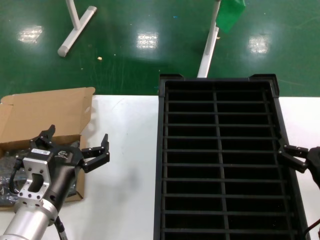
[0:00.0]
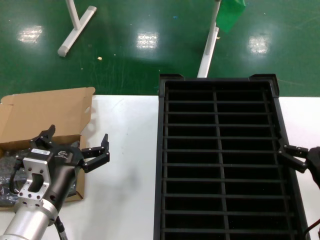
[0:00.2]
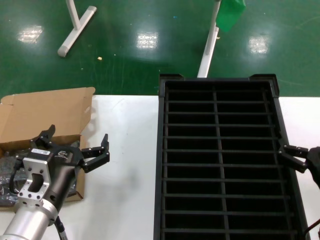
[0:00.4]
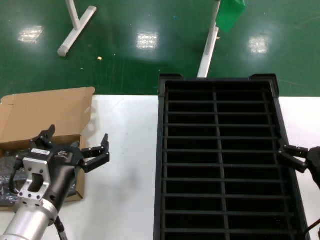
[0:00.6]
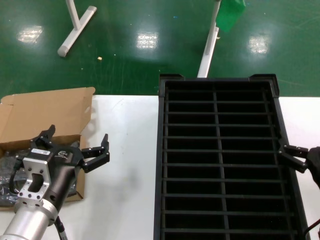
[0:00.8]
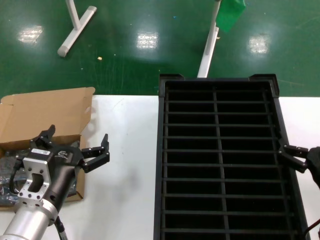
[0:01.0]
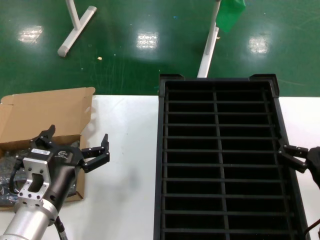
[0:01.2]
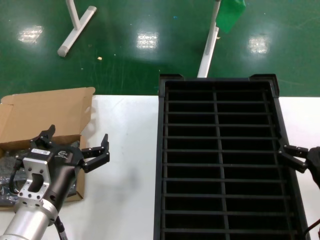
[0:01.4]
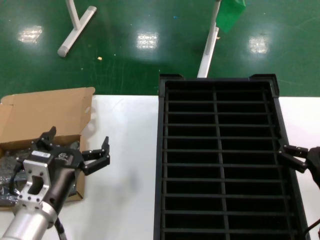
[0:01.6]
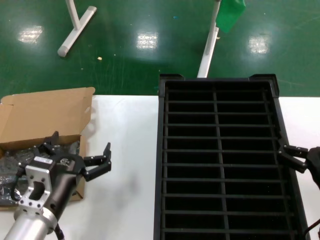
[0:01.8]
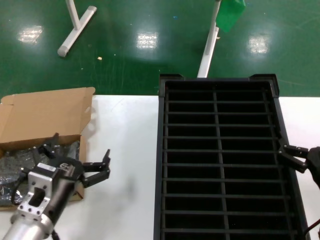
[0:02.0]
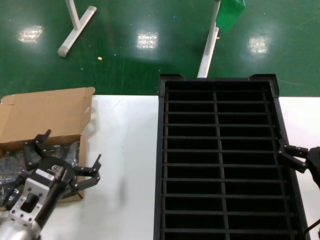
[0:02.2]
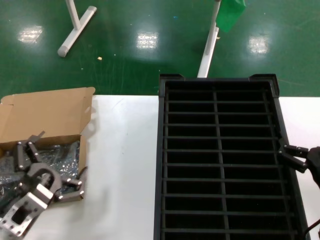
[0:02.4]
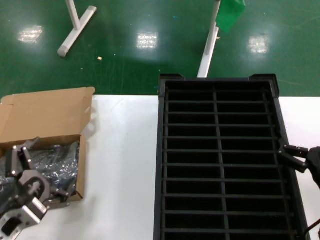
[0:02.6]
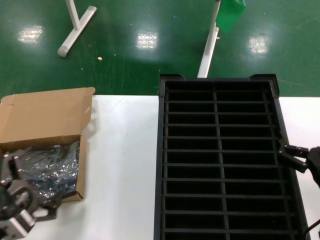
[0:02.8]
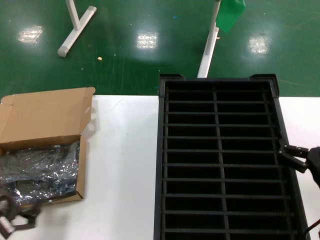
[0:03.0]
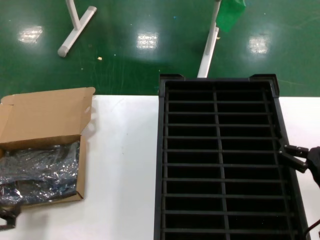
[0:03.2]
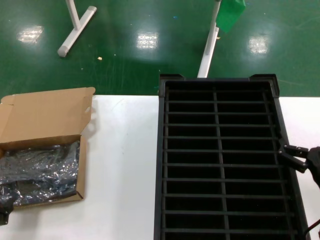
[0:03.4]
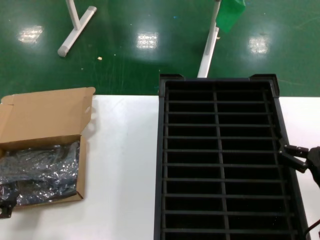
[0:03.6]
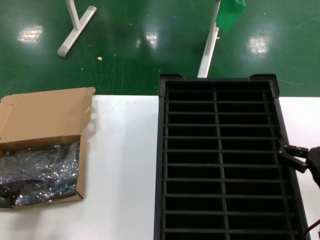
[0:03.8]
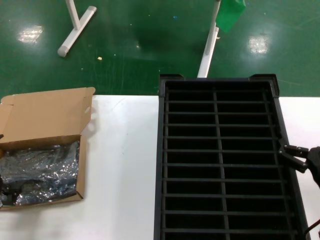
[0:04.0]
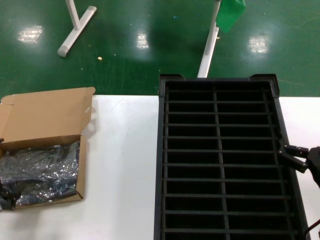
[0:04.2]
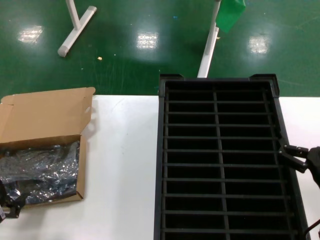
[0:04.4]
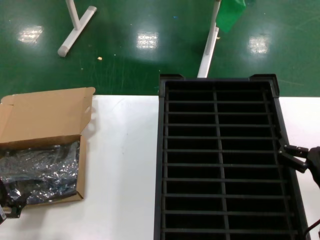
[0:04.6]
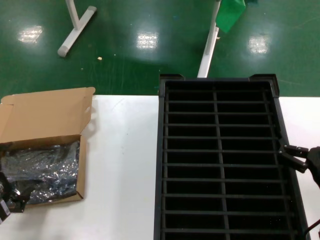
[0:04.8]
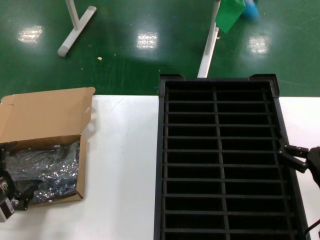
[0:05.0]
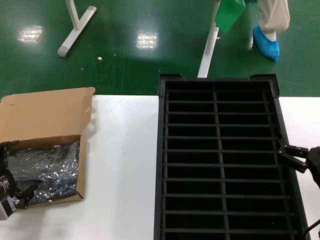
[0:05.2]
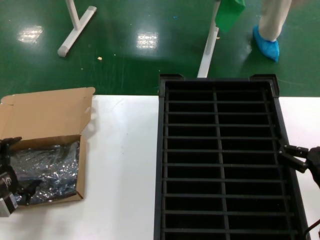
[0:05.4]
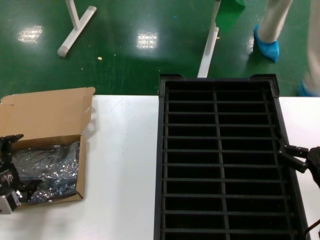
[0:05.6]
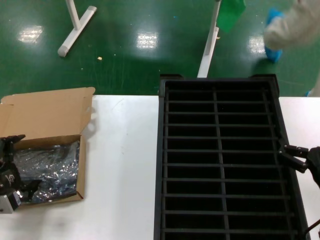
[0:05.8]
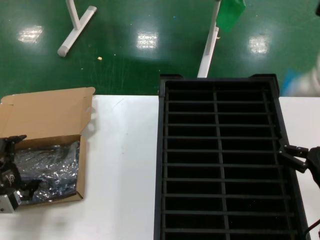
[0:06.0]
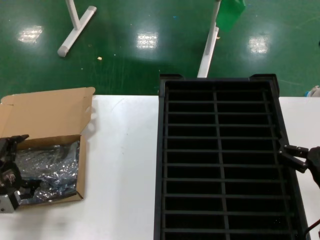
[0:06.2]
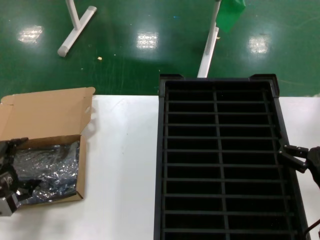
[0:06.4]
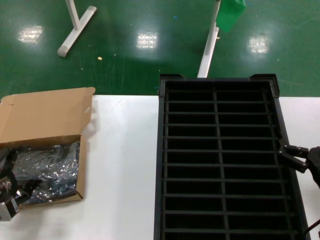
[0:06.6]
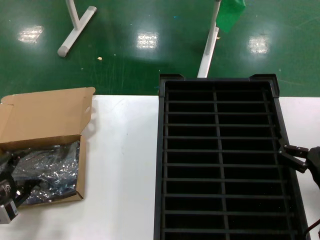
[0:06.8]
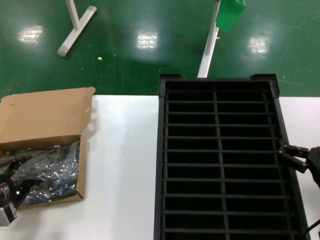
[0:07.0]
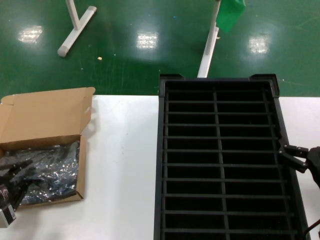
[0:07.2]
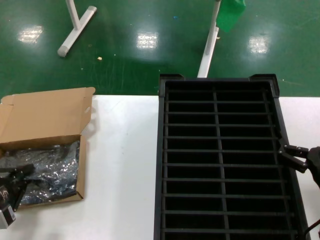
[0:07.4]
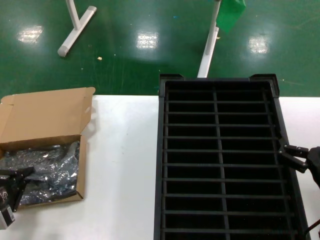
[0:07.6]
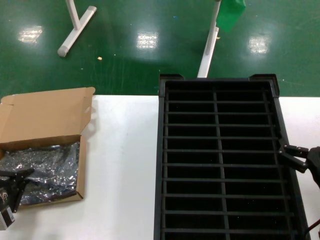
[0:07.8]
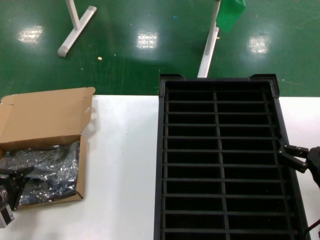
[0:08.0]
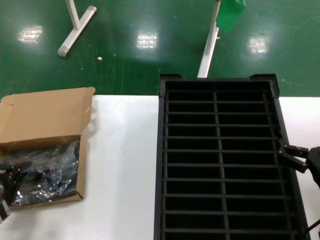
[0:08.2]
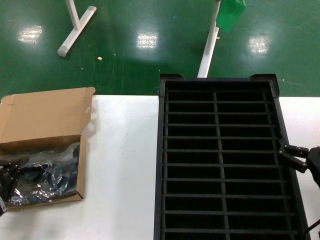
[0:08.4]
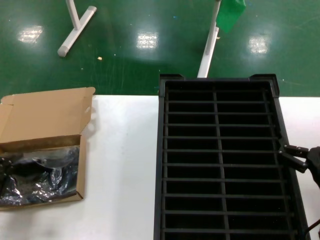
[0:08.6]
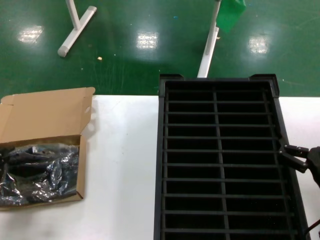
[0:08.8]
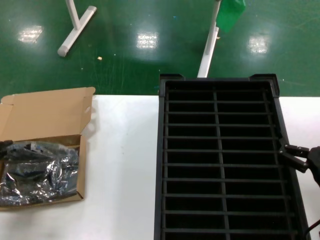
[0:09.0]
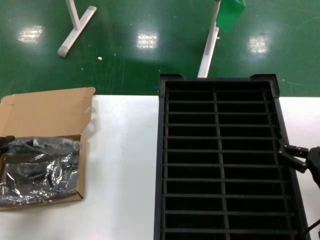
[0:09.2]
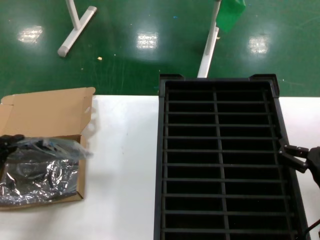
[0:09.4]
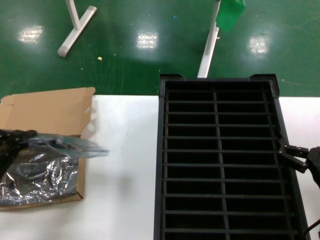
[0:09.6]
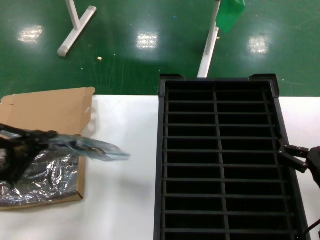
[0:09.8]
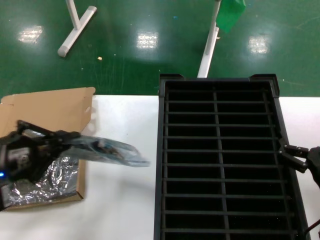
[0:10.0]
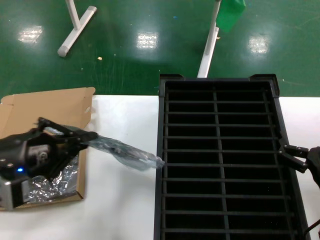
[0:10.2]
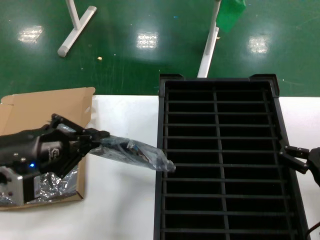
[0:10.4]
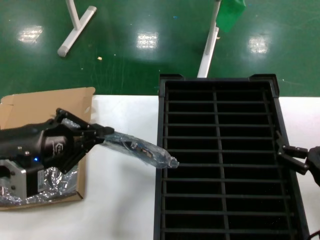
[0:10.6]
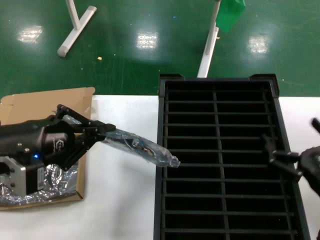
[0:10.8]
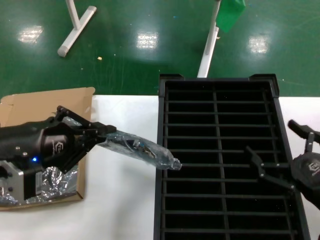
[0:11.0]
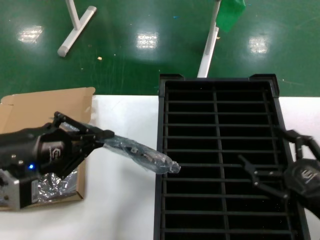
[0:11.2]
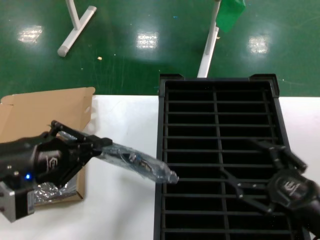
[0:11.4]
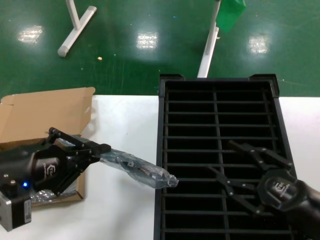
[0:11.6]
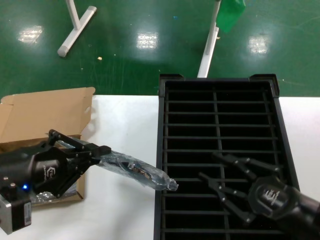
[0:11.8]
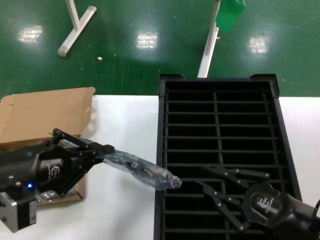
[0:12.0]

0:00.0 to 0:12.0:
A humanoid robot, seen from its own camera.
Task of the whole recording: take out graphics card from box remove packaging put into black container.
Step, 0:00.0 to 0:07.6: Grasp the bag.
Step, 0:07.8 to 0:10.6: Lift the bag.
0:00.0 to 0:01.6: Both hands stay put.
0:01.6 to 0:03.0: The left hand moves to the left and backward, approximately 15 cm.
0:03.0 to 0:04.4: The left hand shifts roughly 10 cm to the left and forward.
0:04.4 to 0:06.0: The left hand travels forward by about 5 cm.
0:06.0 to 0:07.6: The hands stay close to where they were, moving slightly.
0:07.6 to 0:09.0: The left hand moves upward, roughly 10 cm.
0:09.0 to 0:10.4: The left hand moves to the right and upward, some 20 cm.

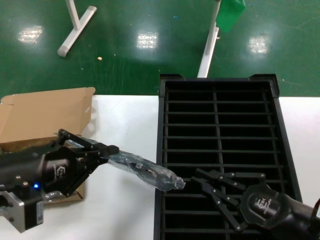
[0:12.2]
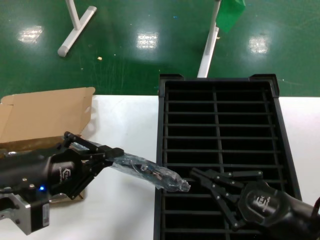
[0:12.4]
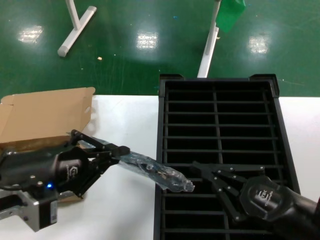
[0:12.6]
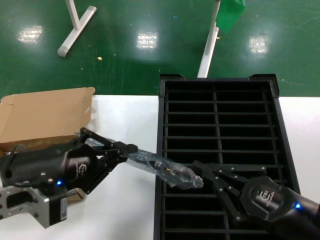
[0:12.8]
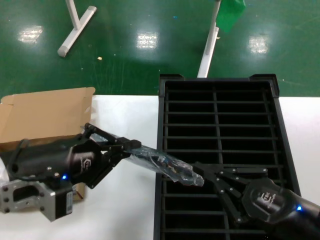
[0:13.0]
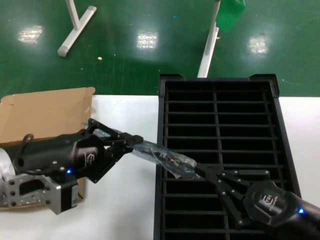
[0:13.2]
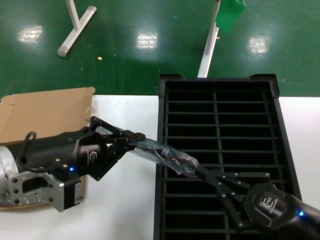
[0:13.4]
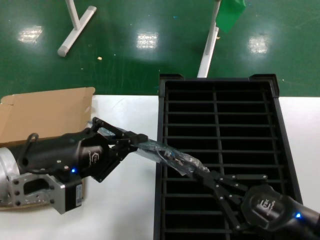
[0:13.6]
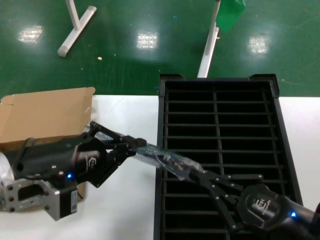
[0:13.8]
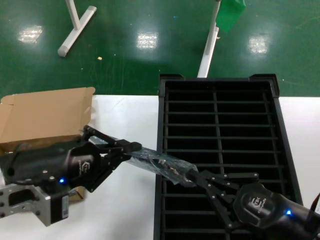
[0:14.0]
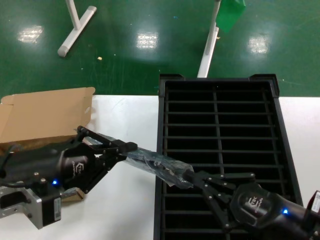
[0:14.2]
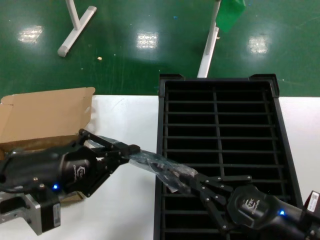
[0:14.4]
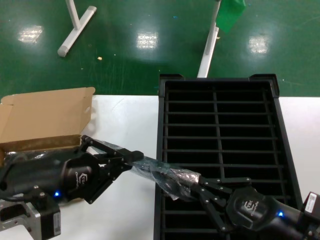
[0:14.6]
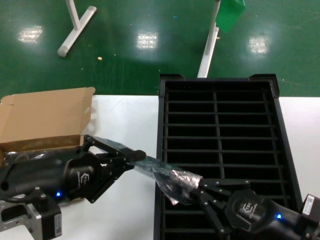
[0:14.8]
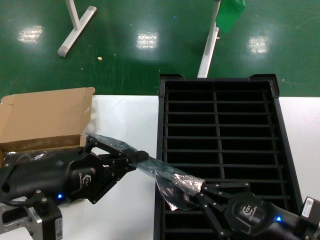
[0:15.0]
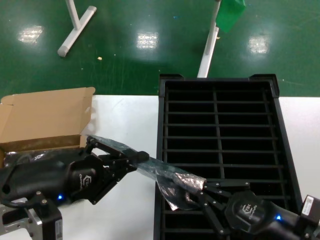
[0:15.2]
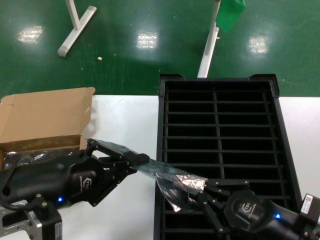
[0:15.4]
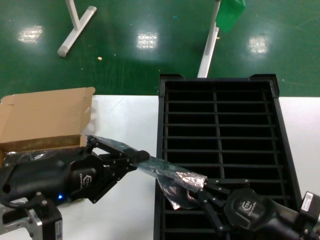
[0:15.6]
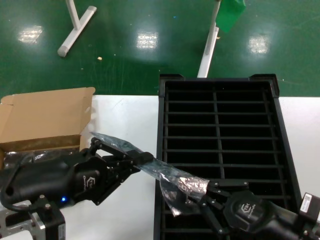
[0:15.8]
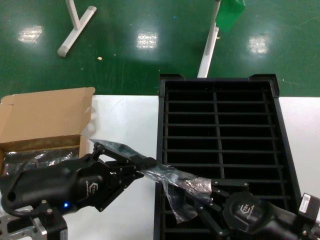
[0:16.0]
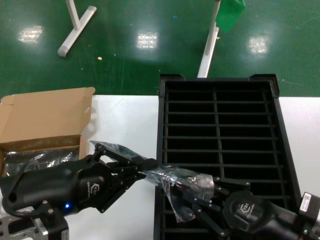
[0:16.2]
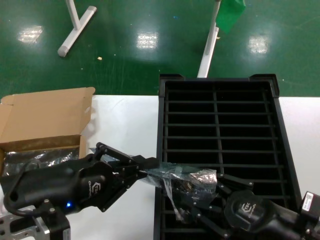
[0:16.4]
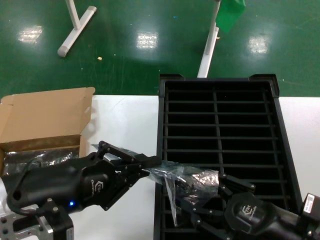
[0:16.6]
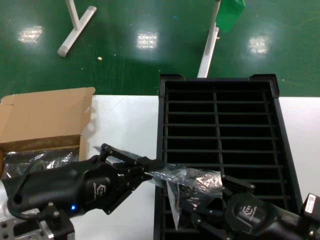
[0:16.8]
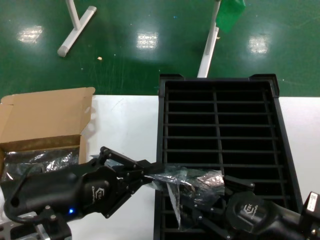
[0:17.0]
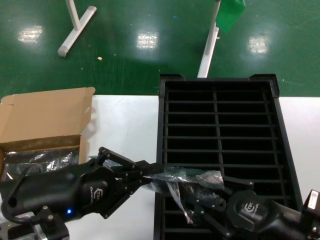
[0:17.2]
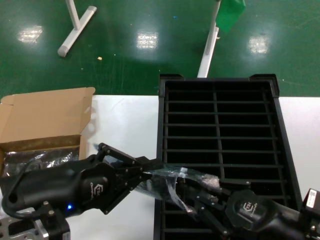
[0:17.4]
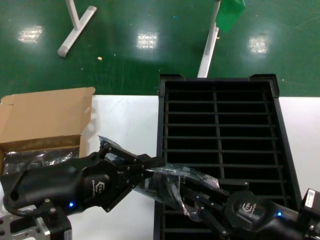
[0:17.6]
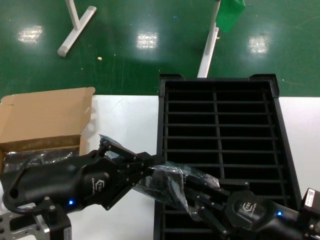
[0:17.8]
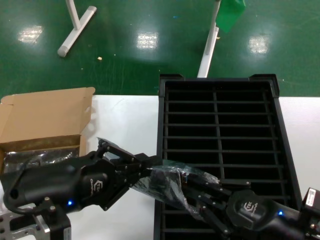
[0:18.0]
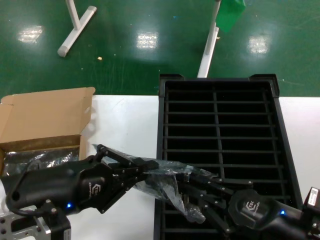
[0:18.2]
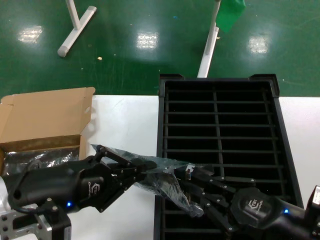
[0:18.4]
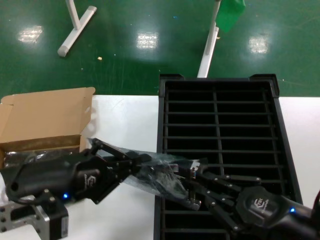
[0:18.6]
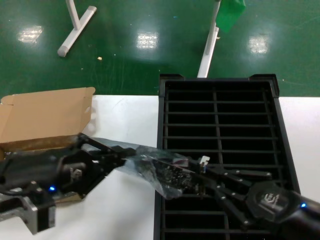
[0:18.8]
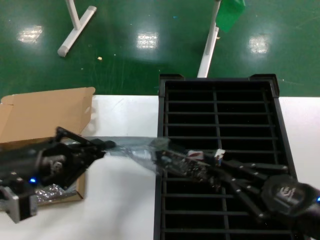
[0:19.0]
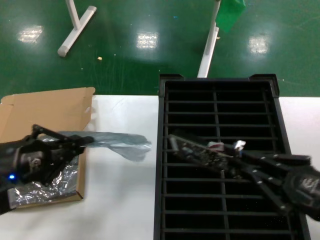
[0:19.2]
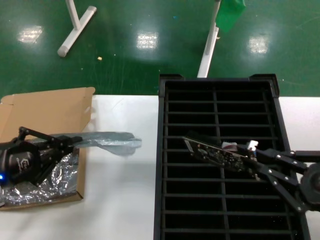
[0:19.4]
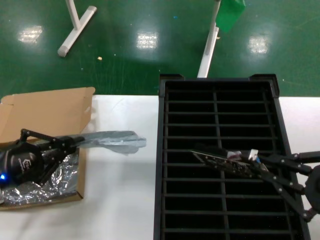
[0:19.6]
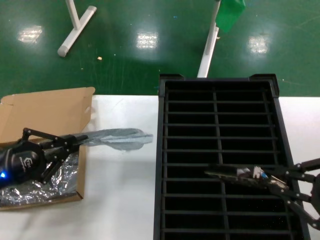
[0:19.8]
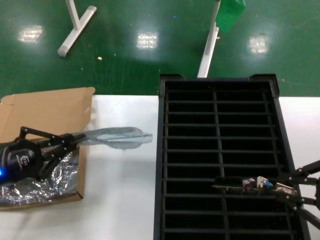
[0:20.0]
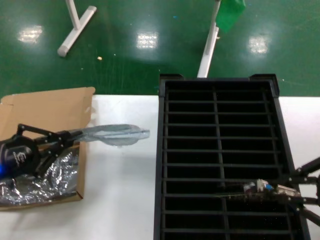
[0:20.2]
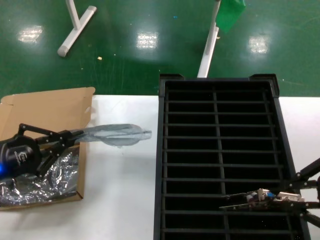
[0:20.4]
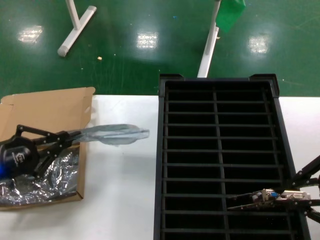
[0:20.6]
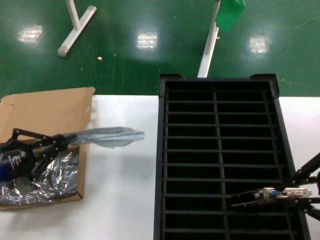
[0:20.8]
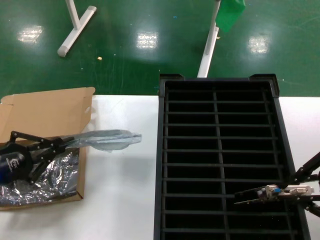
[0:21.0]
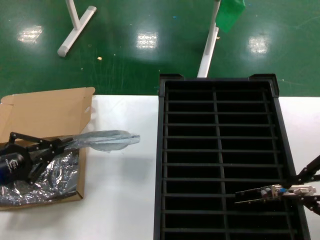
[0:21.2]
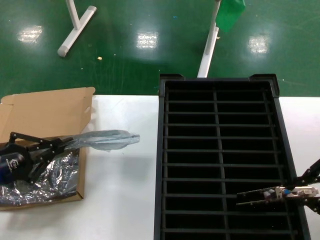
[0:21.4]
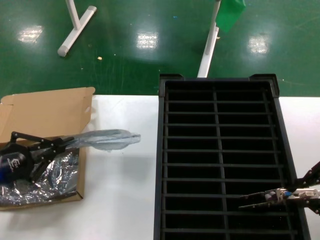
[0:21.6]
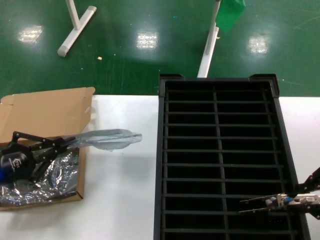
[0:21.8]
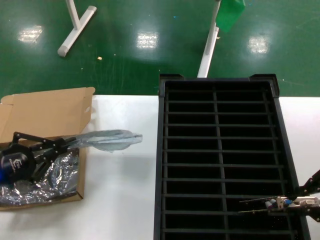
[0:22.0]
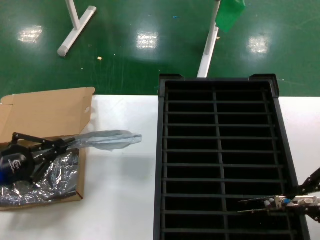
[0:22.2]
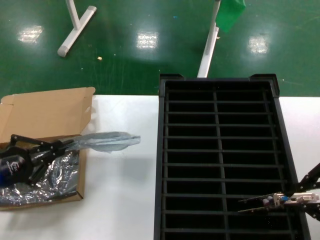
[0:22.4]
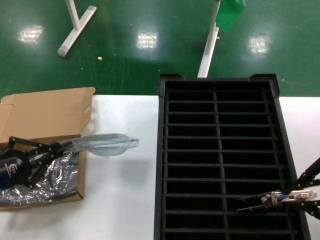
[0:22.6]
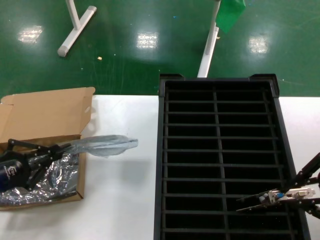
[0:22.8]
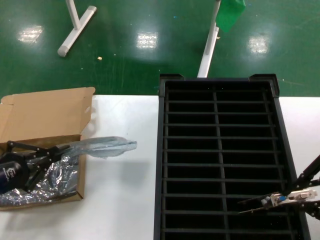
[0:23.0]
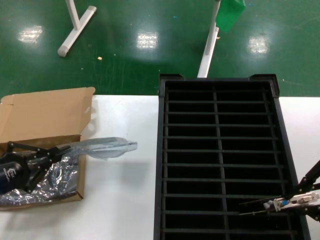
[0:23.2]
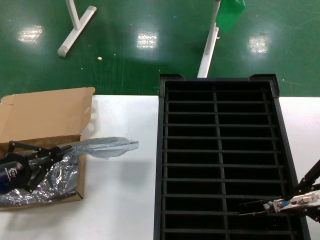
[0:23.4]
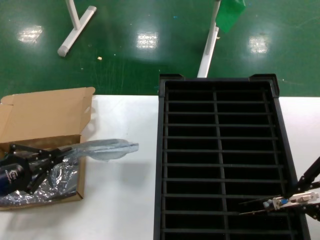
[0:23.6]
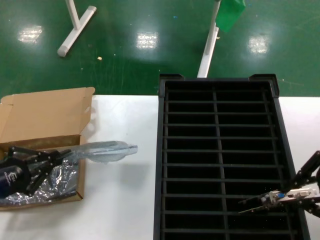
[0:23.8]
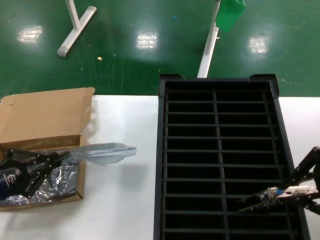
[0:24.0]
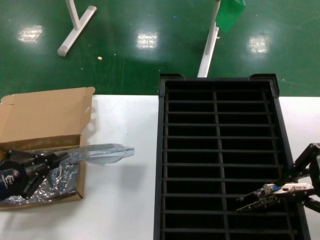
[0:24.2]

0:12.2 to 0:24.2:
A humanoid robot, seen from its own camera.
Task of the whole recording: take out graphics card from box remove packaging put into black container.
Step, 0:12.2 to 0:19.0: Take out the hard disk of the bag.
0:12.2 to 0:16.6: The hands stay close to where they were, moving slightly.
0:16.6 to 0:18.2: The two hands keep their place.
0:18.2 to 0:19.8: The left hand travels to the left, downward and forward by approximately 15 cm. The right hand shifts approximately 15 cm upward and to the right.
0:19.8 to 0:21.2: The right hand moves upward, approximately 10 cm. The left hand shifts roughly 5 cm to the left.
0:21.2 to 0:22.6: Both hands stay about where they are.
0:22.6 to 0:24.2: The hands move only a little.
